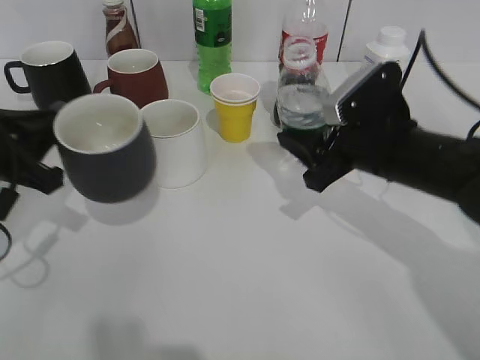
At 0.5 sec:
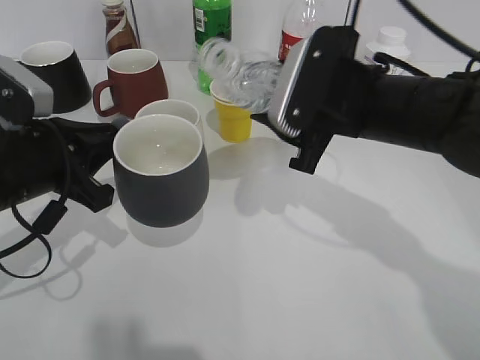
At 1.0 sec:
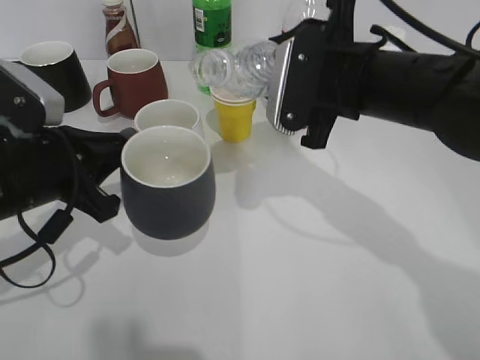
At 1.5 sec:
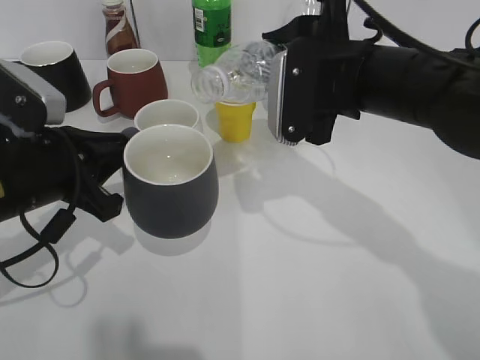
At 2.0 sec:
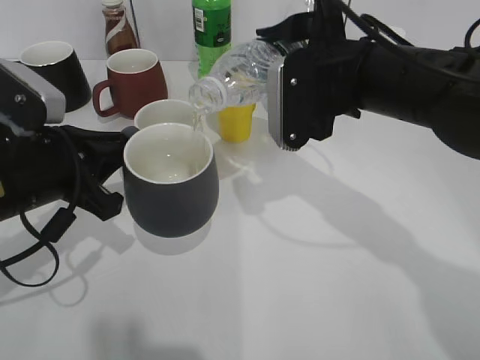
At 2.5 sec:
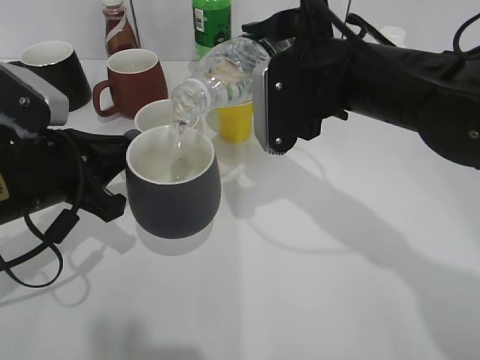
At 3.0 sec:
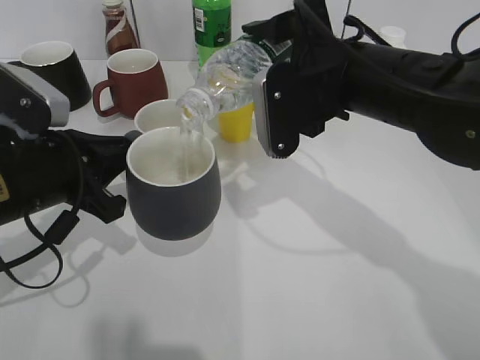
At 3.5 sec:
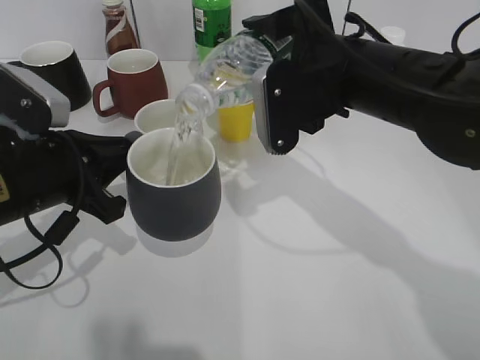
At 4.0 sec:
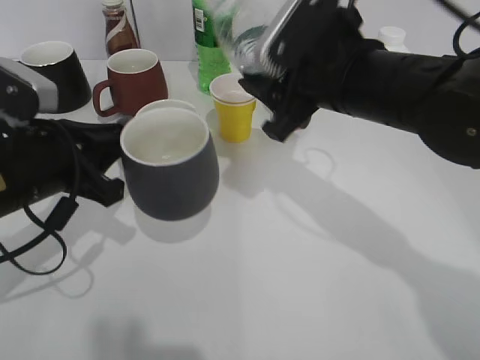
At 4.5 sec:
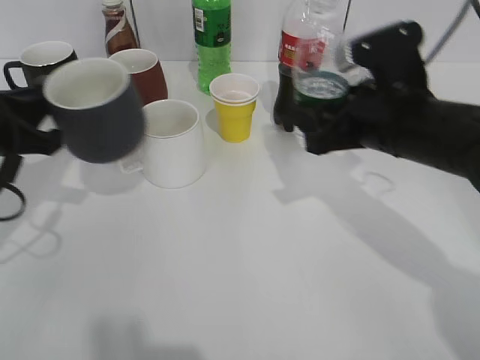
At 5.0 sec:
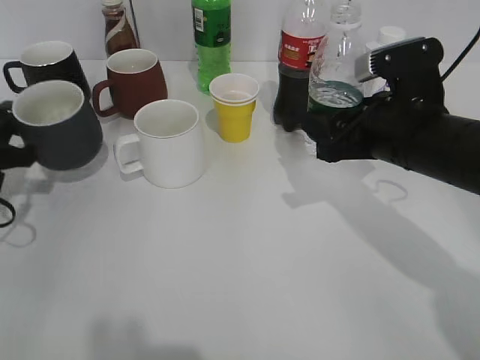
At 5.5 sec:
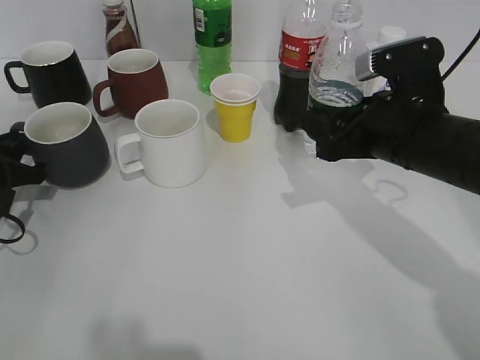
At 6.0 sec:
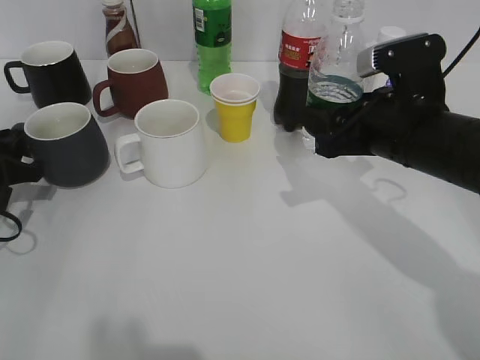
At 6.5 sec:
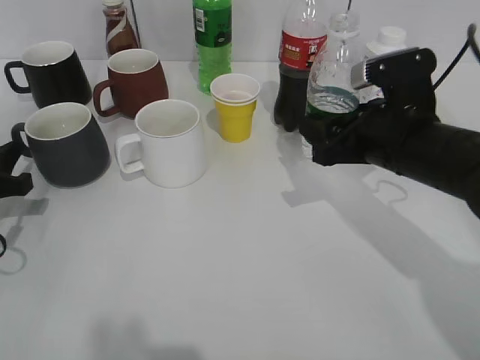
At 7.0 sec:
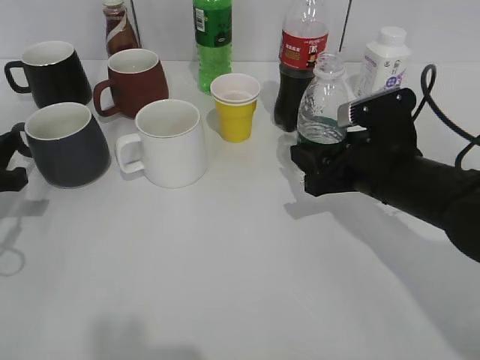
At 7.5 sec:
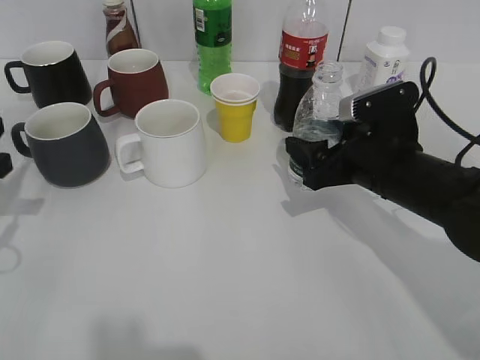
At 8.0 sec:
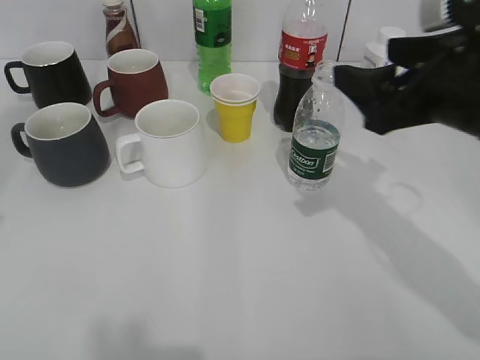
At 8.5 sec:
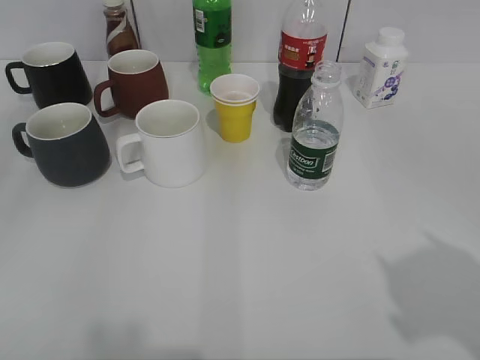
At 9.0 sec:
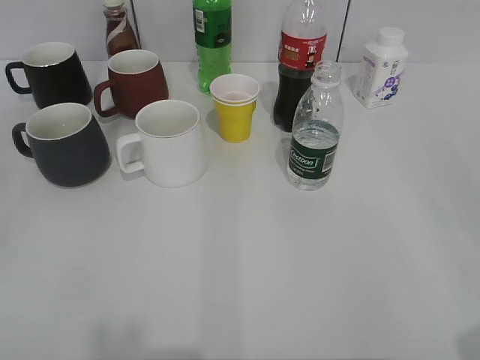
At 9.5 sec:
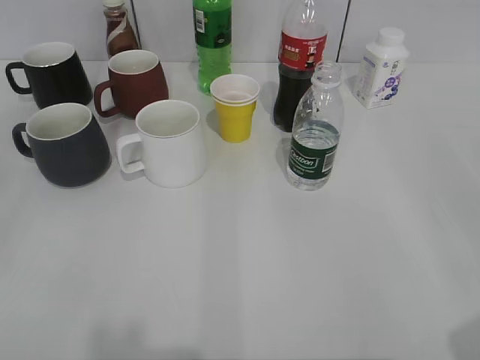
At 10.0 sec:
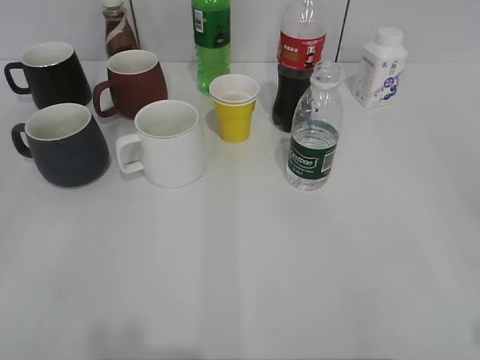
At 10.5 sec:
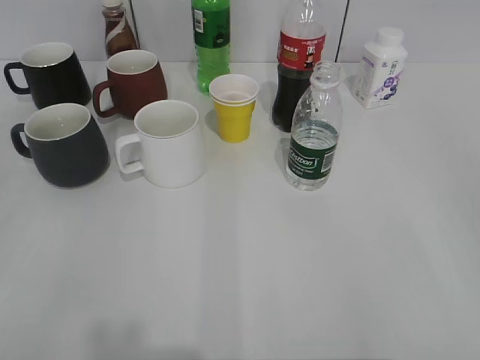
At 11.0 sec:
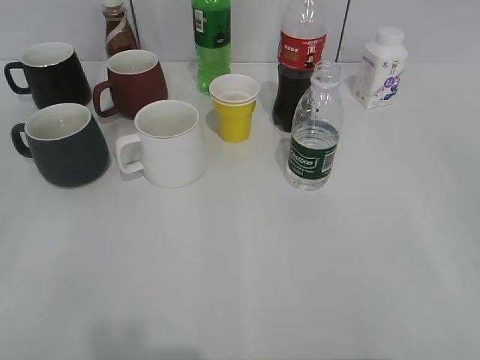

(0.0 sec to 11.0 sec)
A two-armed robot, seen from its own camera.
Step, 0.0 sec - 4.0 sec: Pour the water from bottle to cup with right gripper.
Step, 4.5 sec - 6.0 sec: Place the black cup on the table with left gripper.
Step, 6.5 sec - 7.5 sec: Place the water bottle on the table with right gripper.
0.0 sec - 2.0 sec: The right gripper is displaced upward by roughly 10 cm, while the left gripper travels to the right by some 5 cm.
2.0 sec - 3.5 sec: The grippers move only a little.
3.5 sec - 5.5 sec: The left gripper is displaced to the left, downward and forward by approximately 15 cm; the right gripper travels to the right and downward by about 10 cm.
5.5 sec - 7.5 sec: The left gripper shifts about 5 cm upward; the right gripper opens its fingers.
7.5 sec - 9.0 sec: The right gripper heads backward, upward and to the right, covering about 35 cm. The left gripper heads backward and upward, covering about 25 cm, and opens.
